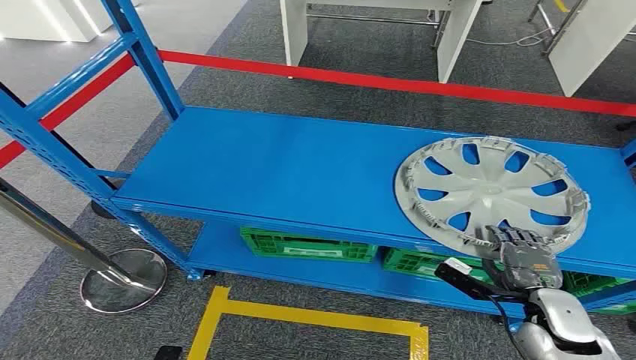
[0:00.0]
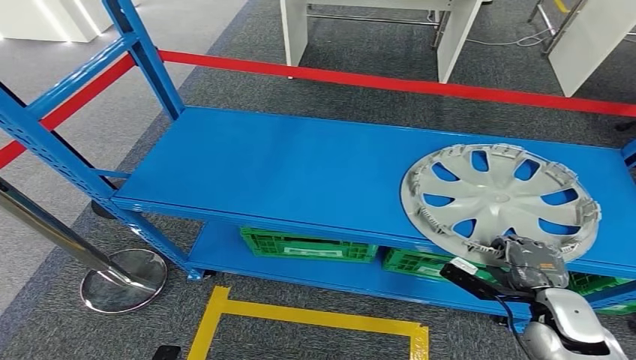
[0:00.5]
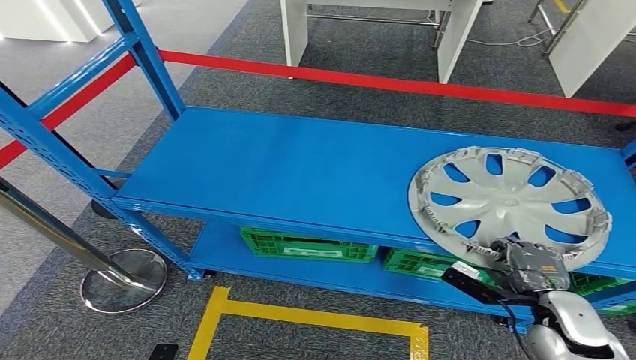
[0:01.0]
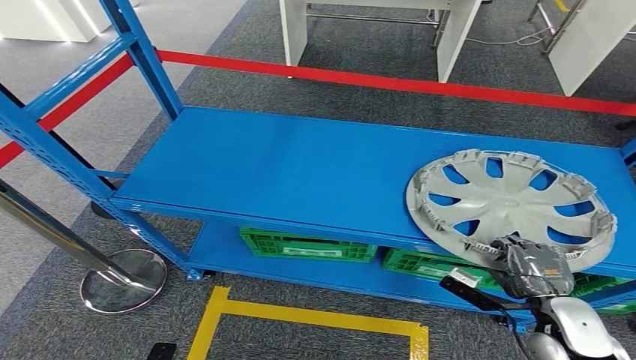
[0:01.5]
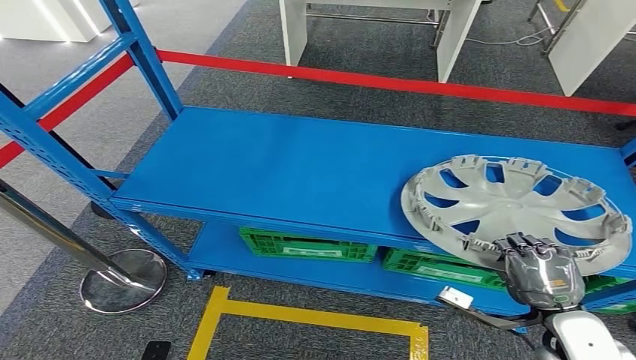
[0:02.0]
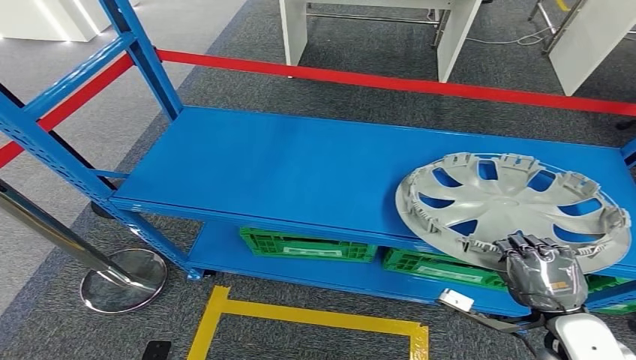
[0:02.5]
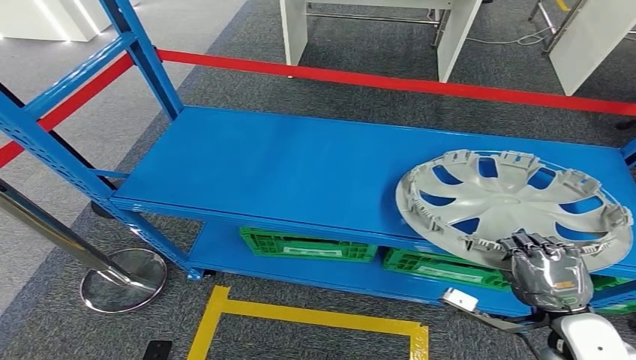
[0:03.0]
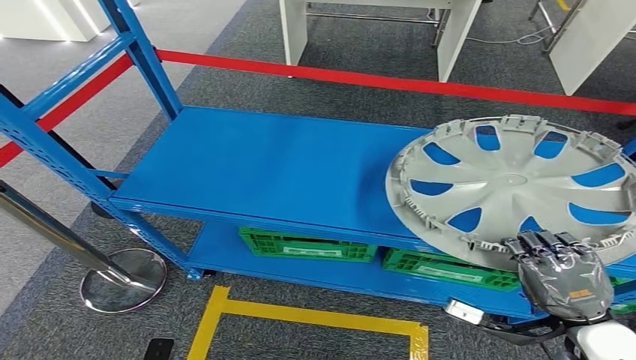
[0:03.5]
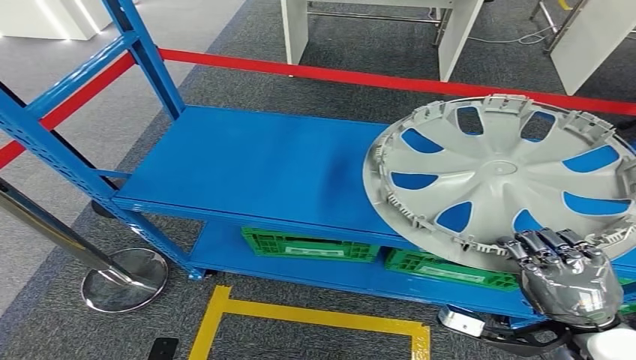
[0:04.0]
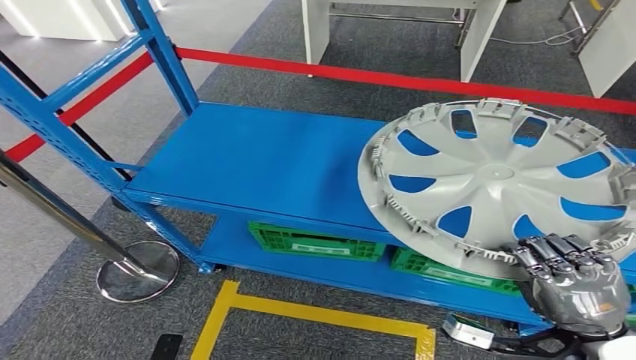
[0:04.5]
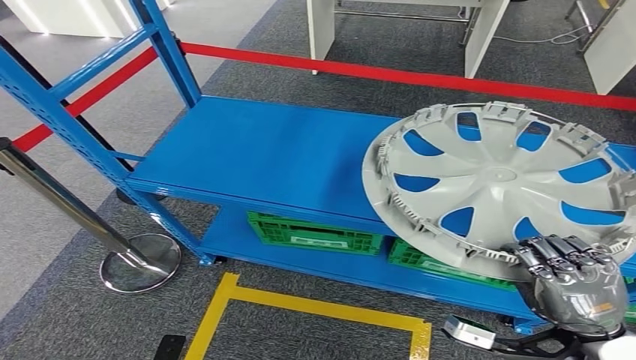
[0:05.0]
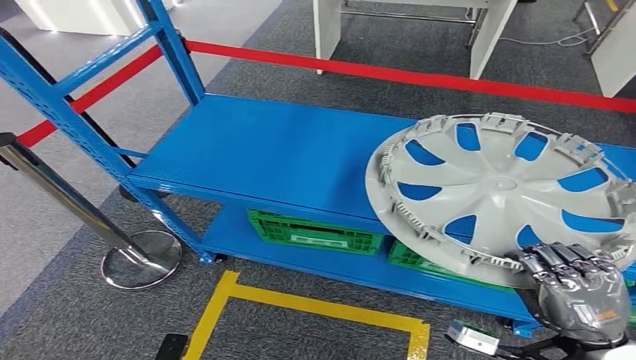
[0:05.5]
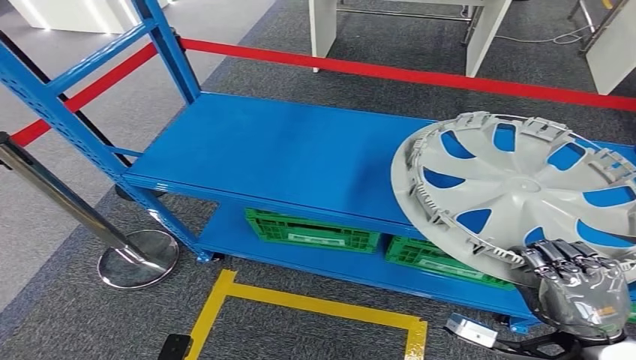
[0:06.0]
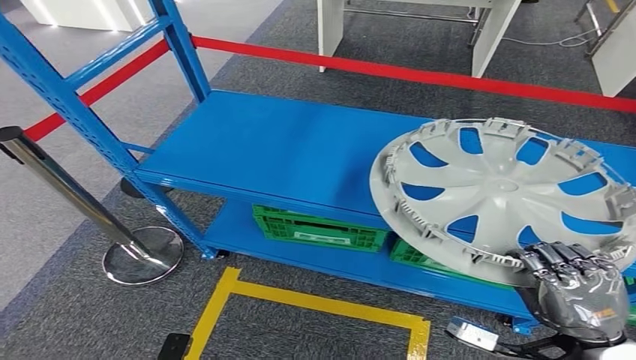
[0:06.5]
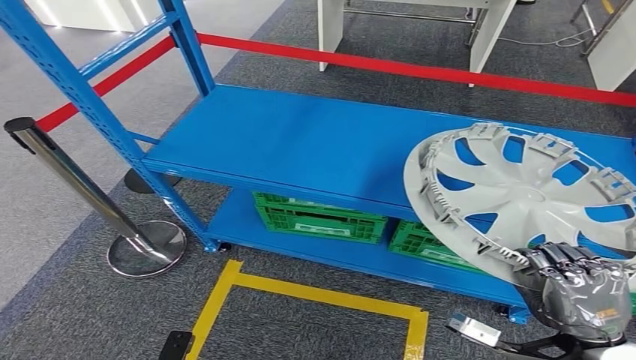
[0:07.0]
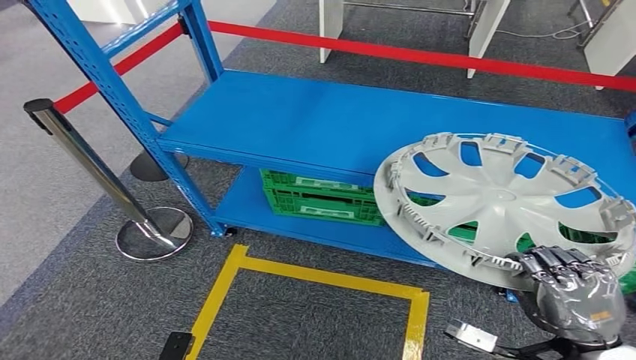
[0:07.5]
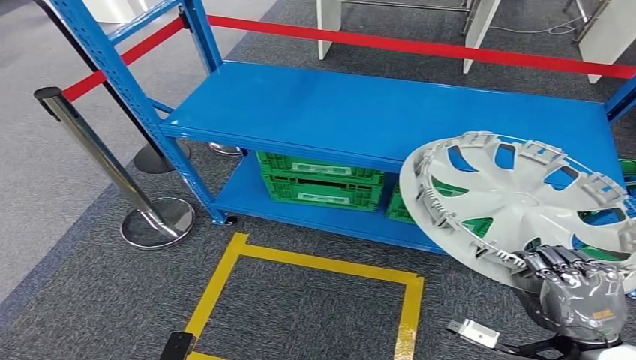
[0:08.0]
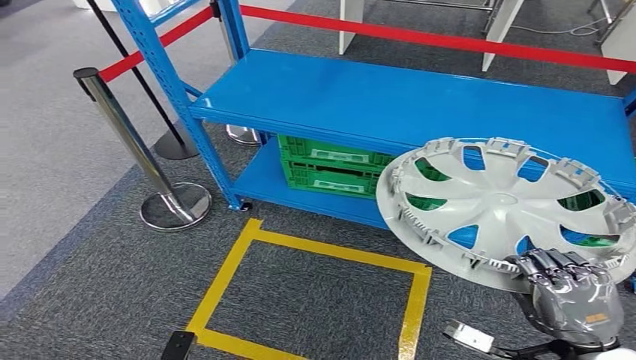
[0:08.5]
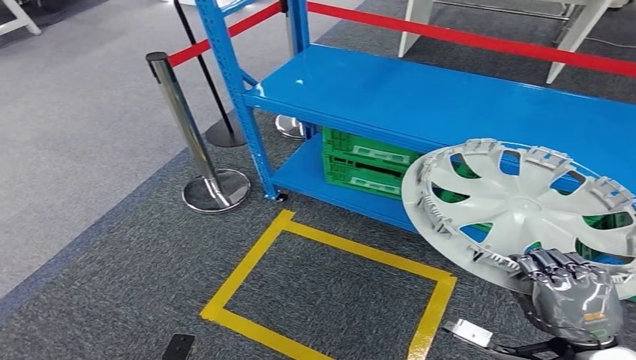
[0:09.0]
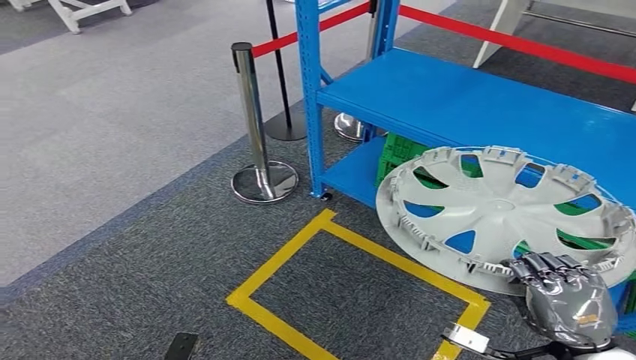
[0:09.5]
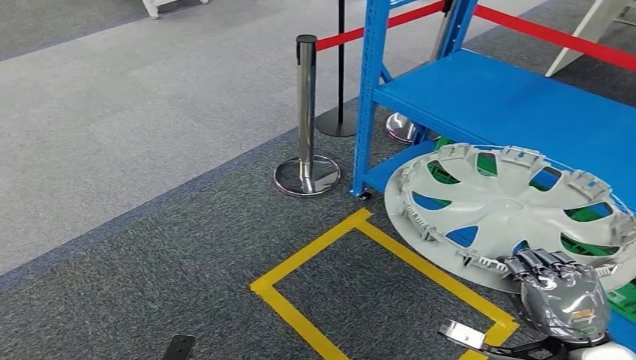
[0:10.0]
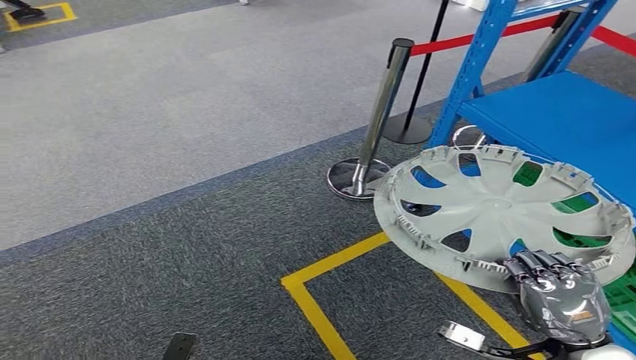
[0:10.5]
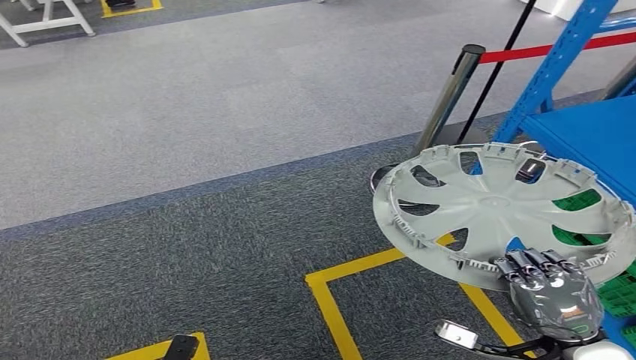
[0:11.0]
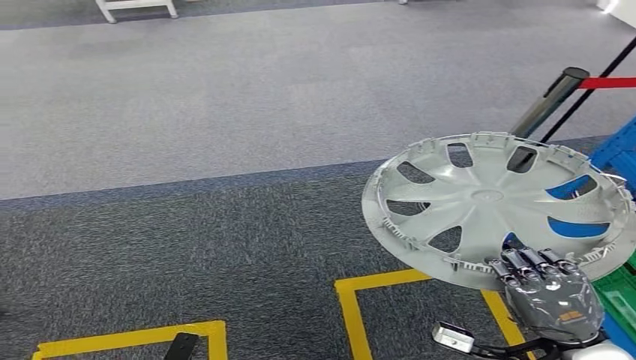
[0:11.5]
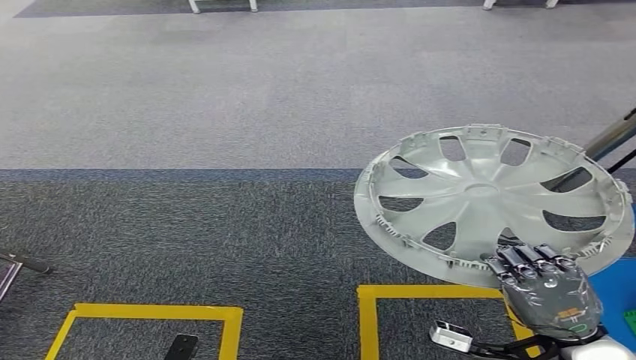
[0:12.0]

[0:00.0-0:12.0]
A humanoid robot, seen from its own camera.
Step, 0:00.0 to 0:05.0: Pick up the small parts from the shelf.

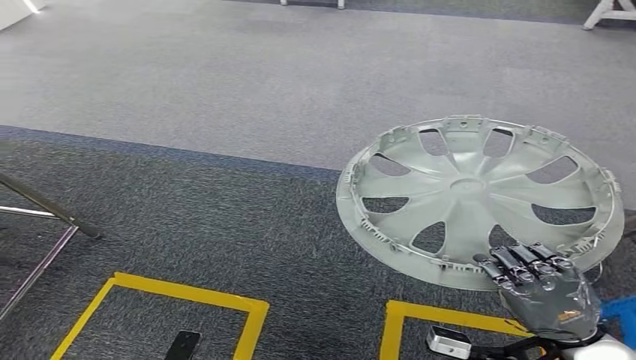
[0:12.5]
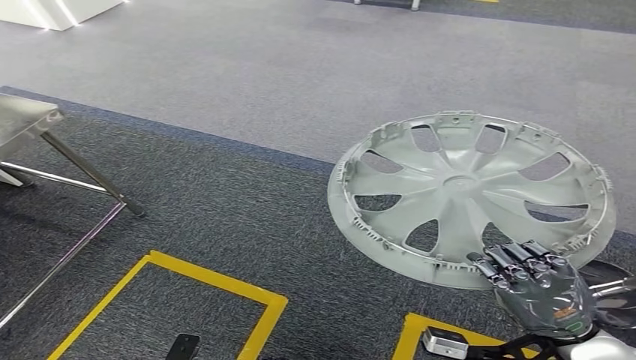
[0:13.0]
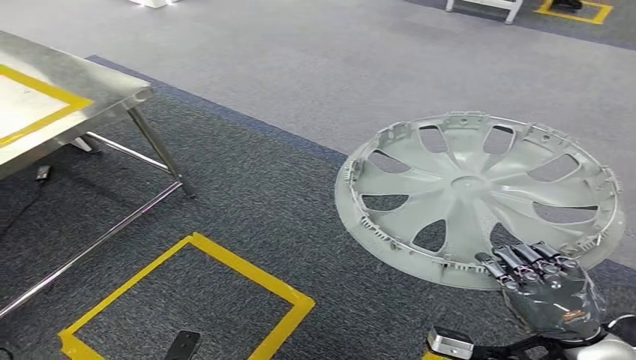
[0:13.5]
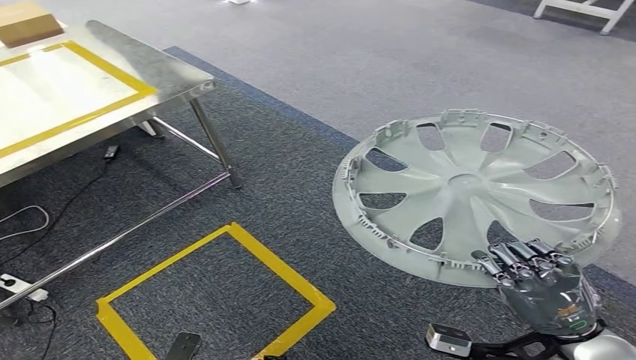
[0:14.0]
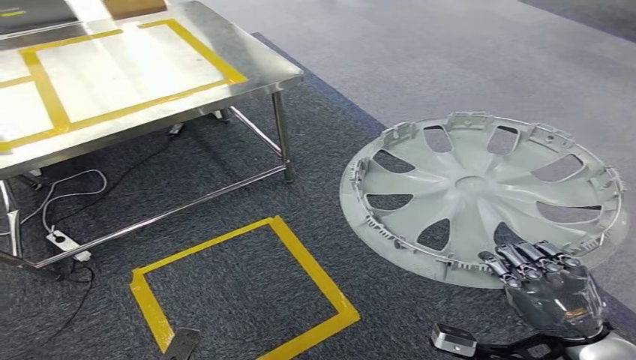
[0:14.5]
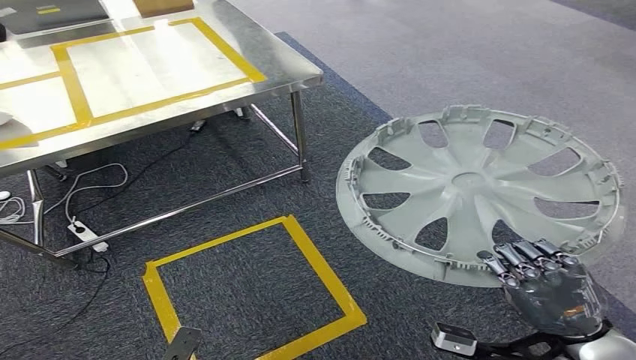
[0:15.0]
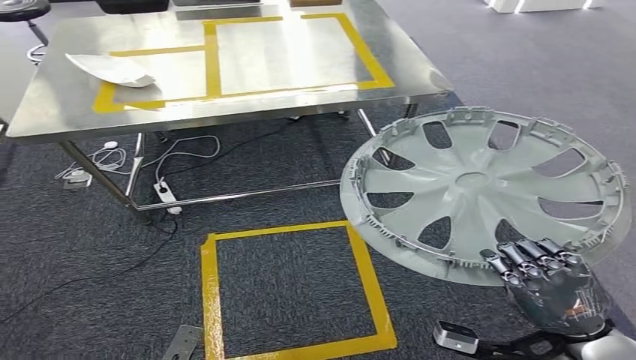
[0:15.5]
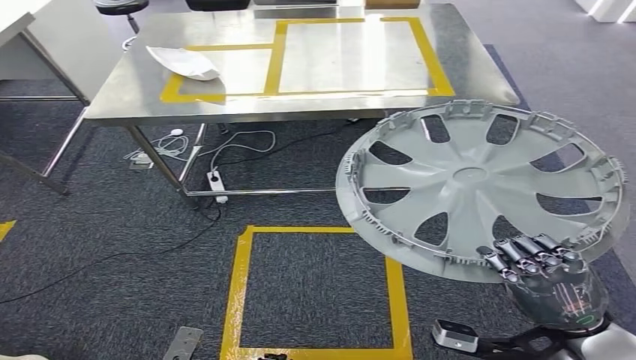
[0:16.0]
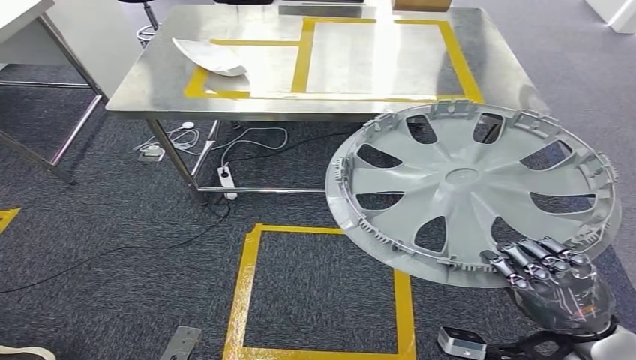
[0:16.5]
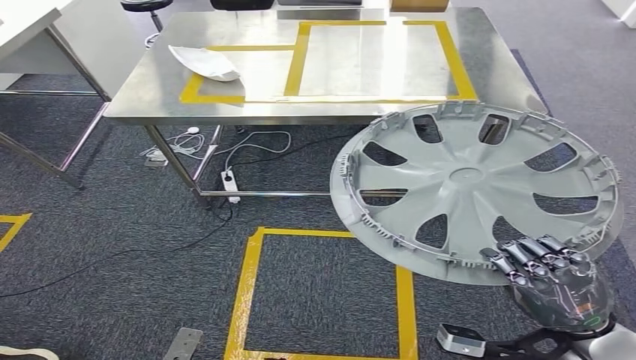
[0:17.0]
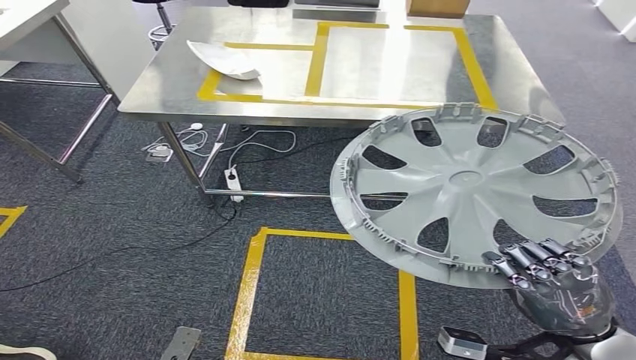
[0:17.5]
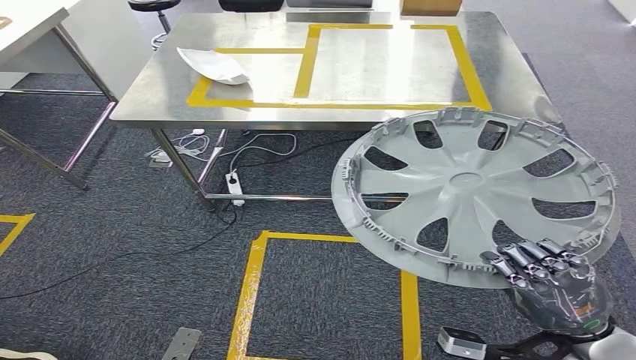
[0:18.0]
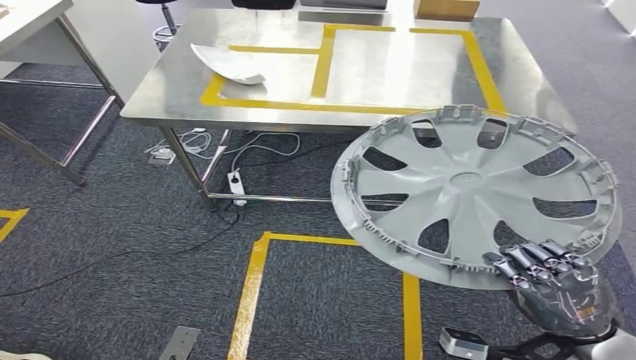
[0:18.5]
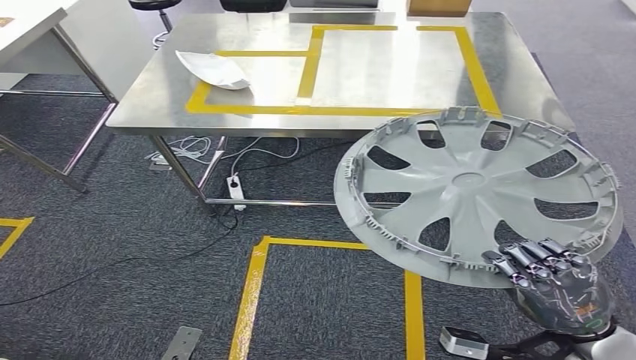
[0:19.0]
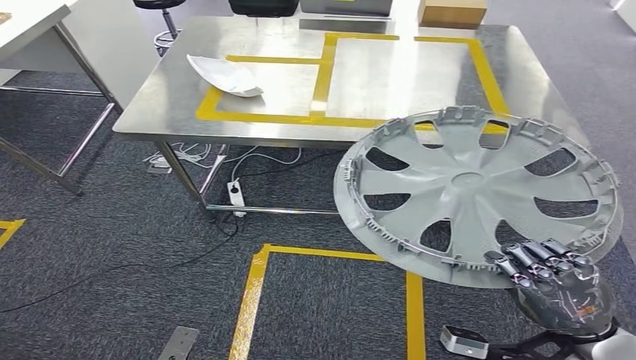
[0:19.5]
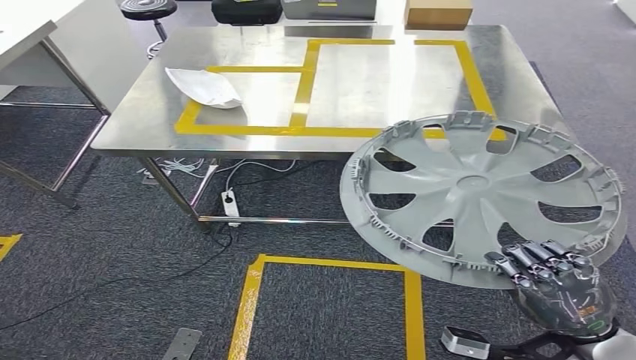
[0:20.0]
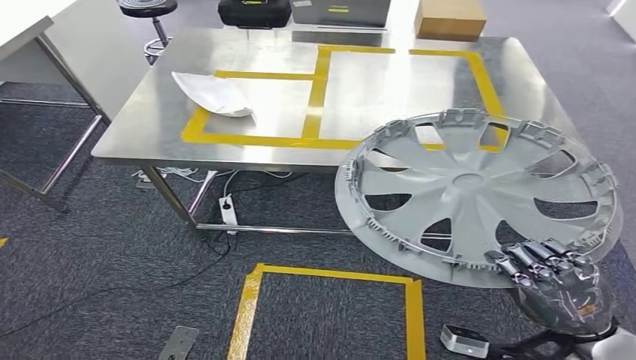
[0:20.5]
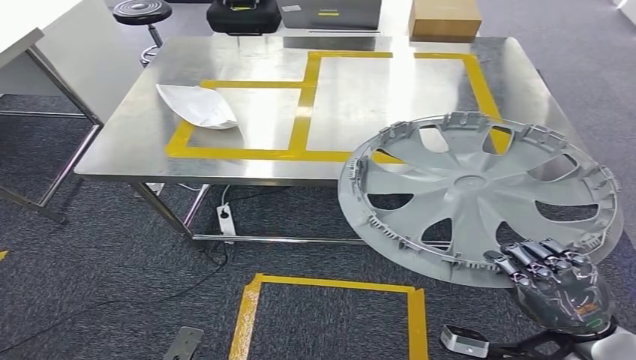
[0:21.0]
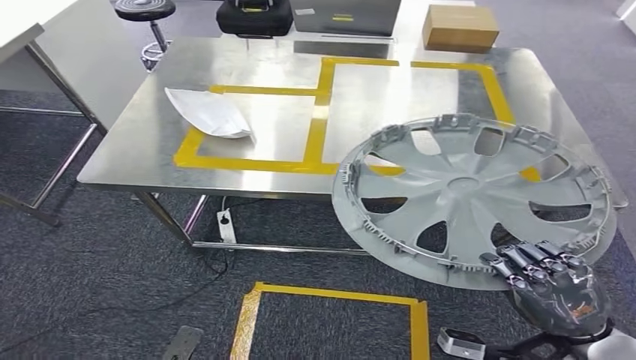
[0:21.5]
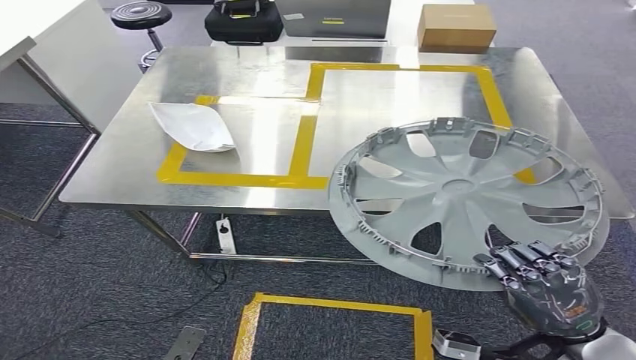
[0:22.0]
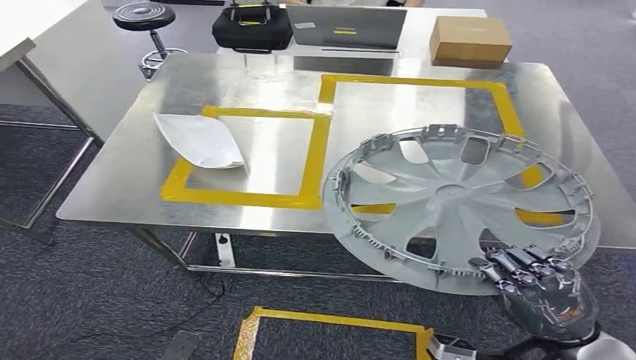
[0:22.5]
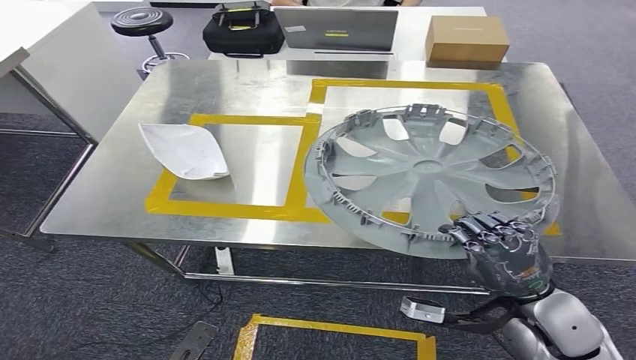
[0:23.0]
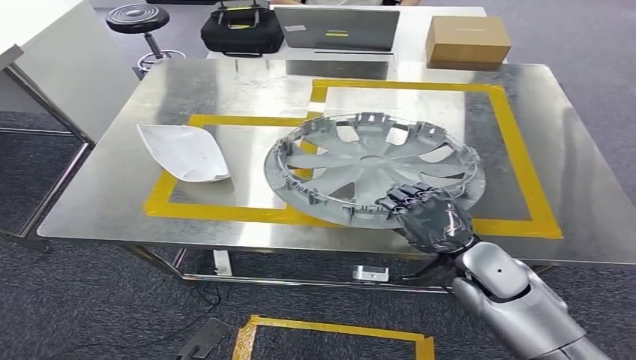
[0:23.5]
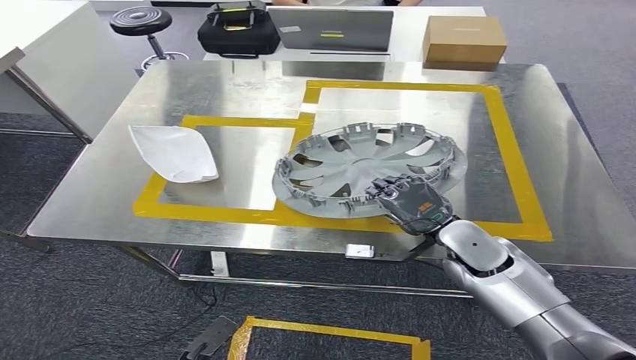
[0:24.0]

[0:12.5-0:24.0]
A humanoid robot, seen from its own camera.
Step, 0:12.5 to 0:23.0: Move the small parts to the workbench.
